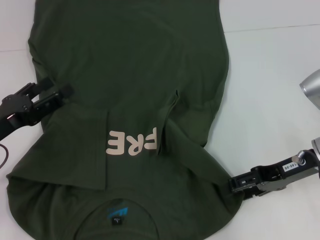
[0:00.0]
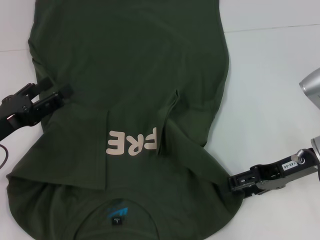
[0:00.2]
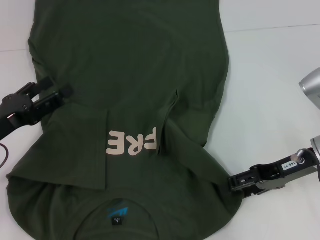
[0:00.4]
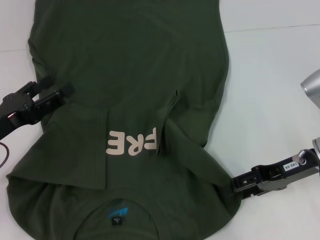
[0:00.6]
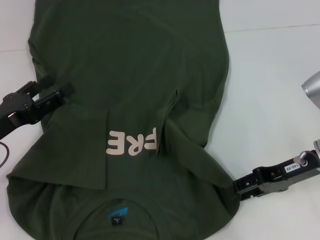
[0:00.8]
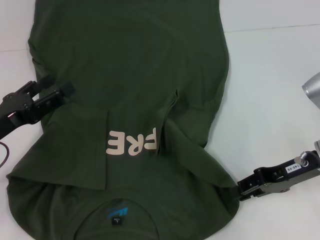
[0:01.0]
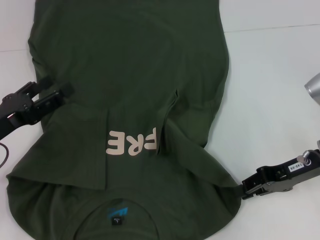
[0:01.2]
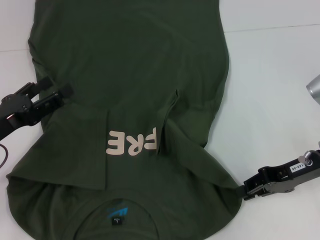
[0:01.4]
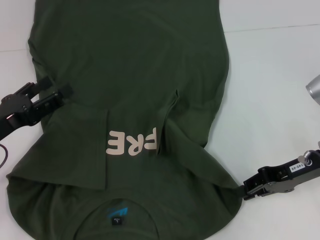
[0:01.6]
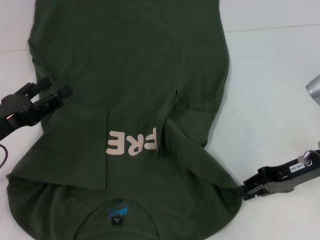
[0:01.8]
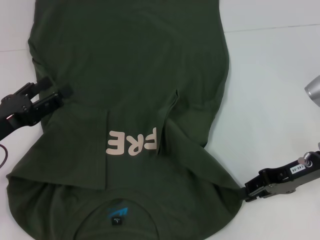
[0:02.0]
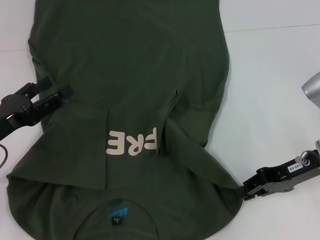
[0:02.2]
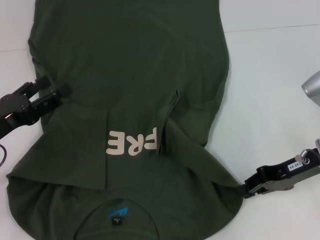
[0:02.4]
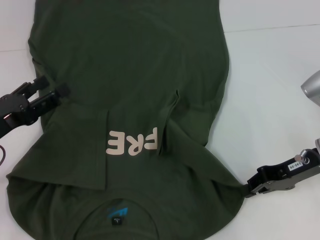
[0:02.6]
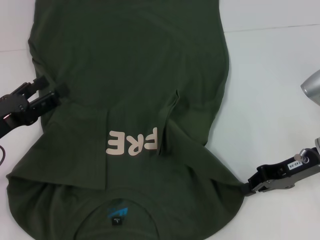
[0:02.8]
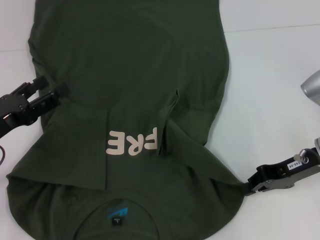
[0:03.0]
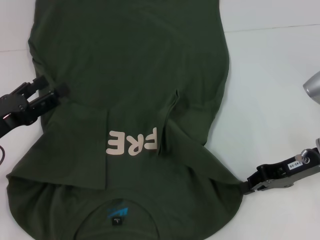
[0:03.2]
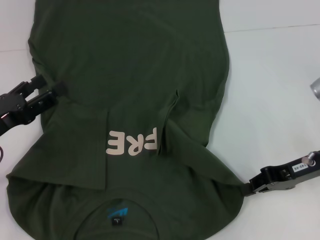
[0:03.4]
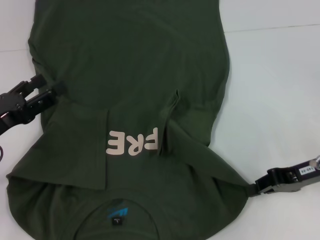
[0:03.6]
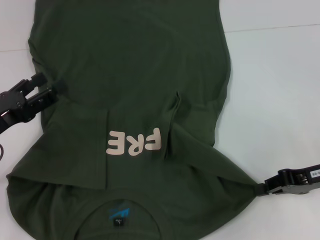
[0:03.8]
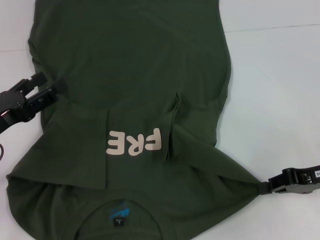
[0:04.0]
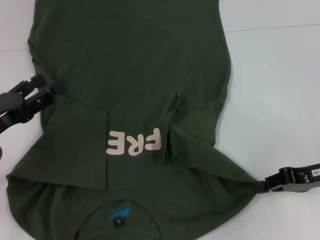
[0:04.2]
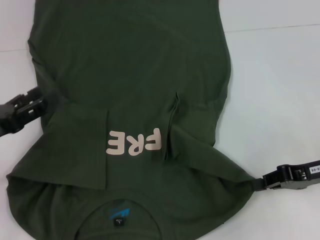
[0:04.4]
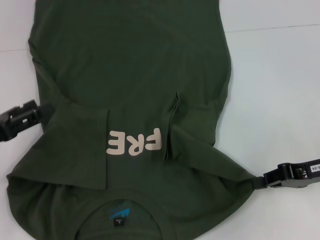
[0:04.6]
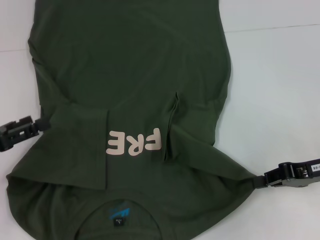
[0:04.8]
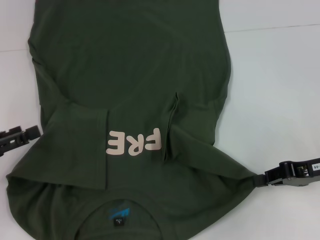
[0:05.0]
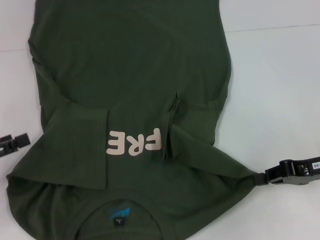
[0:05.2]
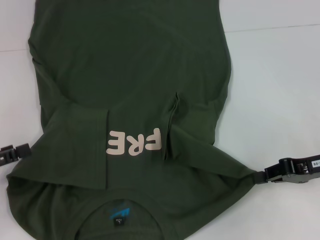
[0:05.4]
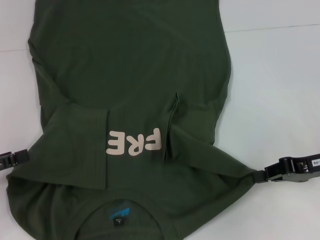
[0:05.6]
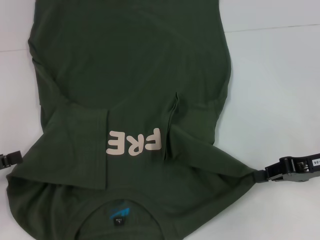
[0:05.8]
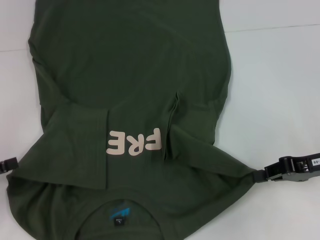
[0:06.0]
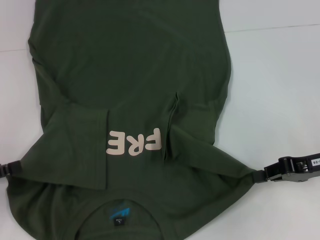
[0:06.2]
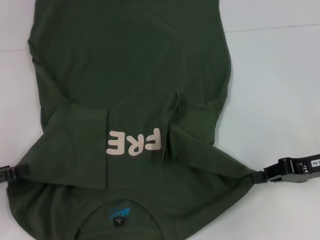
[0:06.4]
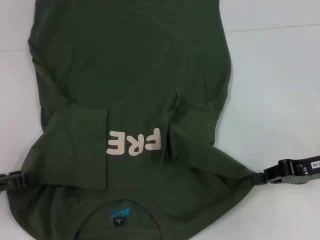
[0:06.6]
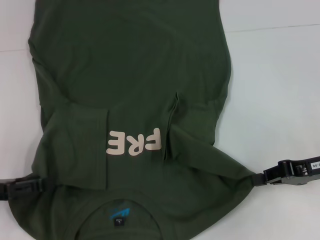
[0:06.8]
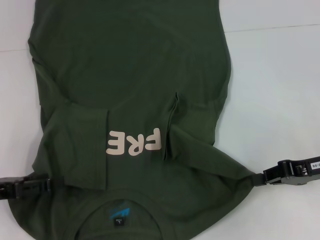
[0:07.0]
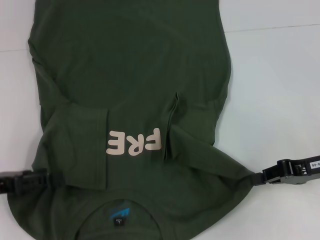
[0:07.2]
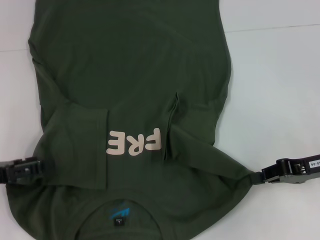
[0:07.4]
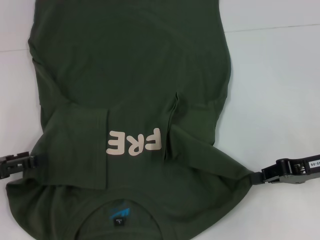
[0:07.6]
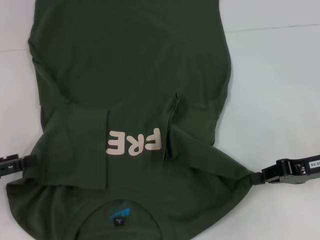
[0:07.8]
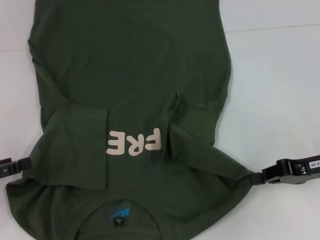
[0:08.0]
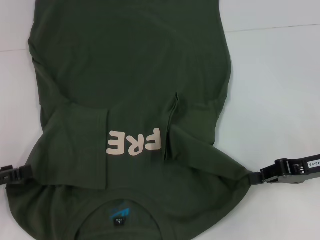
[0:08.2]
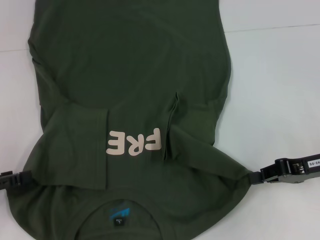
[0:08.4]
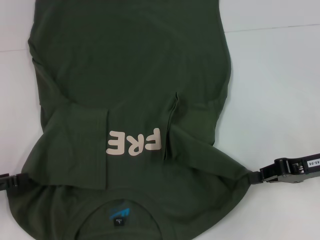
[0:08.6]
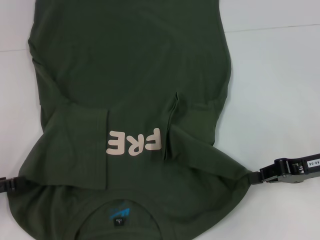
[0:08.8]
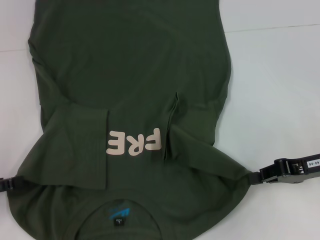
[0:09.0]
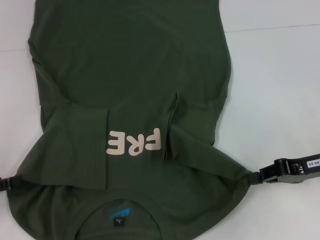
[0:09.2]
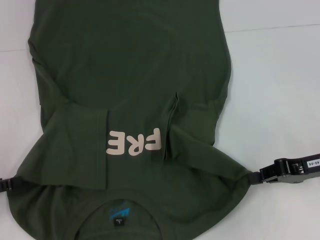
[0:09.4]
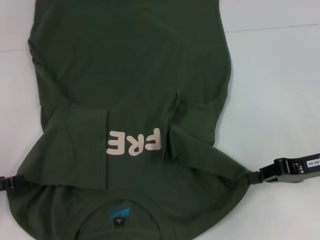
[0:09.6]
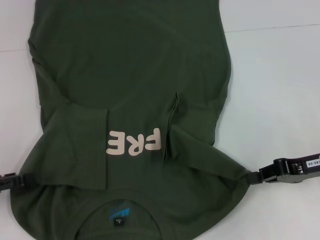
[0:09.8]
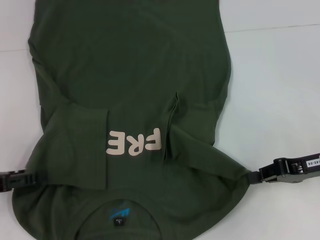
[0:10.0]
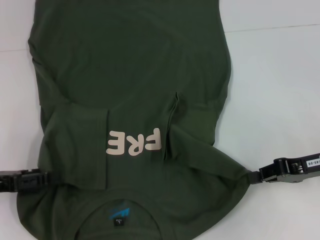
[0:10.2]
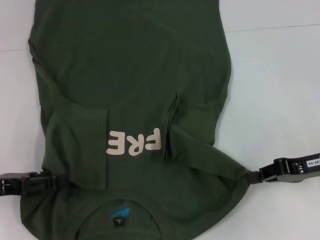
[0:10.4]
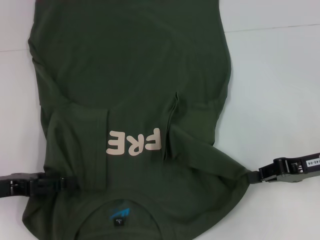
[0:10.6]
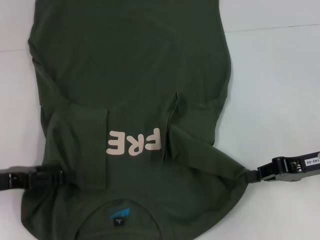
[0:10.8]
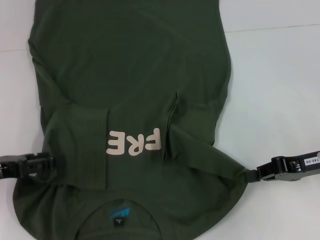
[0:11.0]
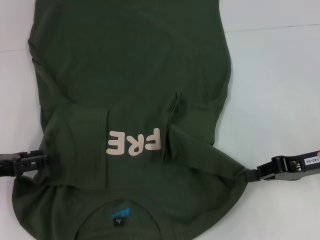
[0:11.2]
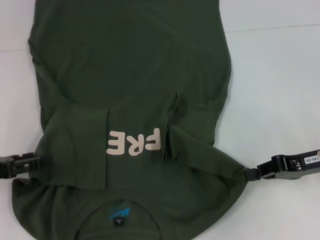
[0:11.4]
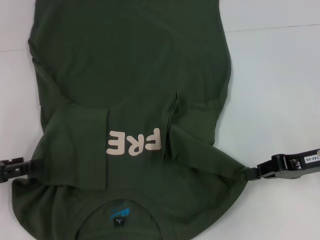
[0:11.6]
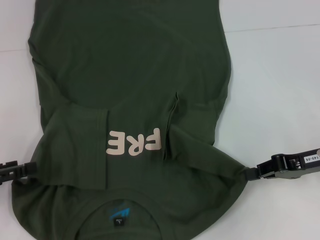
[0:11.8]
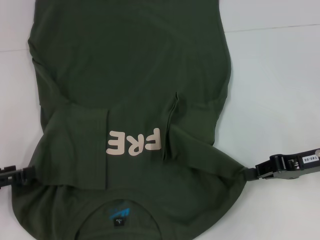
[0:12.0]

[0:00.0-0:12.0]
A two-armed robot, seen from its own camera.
Step, 0:00.0 to 0:03.4: Grab the bottom right corner with your right hand.
Step, 0:03.6 to 0:09.0: Grab the bottom left corner with your left hand.
0:00.0 to 0:01.6: The right gripper closes.
0:01.6 to 0:03.0: Neither gripper changes place.
0:03.0 to 0:04.4: The grippers move only a little.
0:04.4 to 0:06.0: The left gripper goes approximately 5 cm to the left.
0:06.0 to 0:09.0: The grippers stay close to where they were, moving slightly.
0:09.0 to 0:10.4: The left gripper goes some 5 cm to the right.
0:10.4 to 0:12.0: The grippers stay close to where they were, moving slightly.

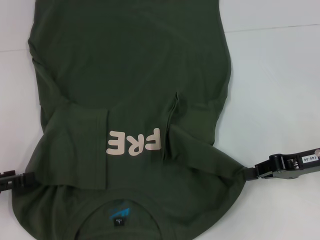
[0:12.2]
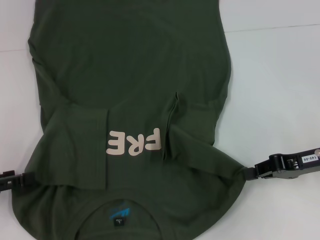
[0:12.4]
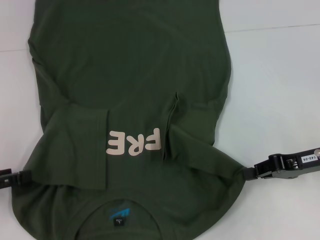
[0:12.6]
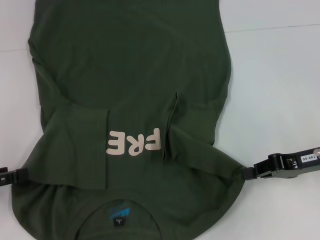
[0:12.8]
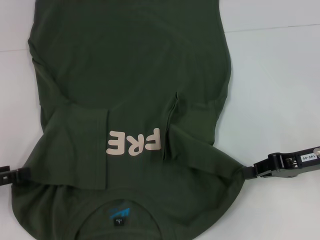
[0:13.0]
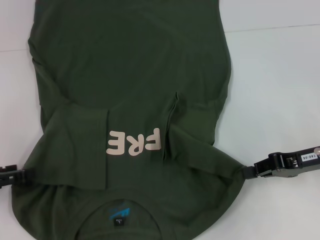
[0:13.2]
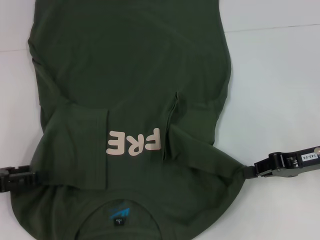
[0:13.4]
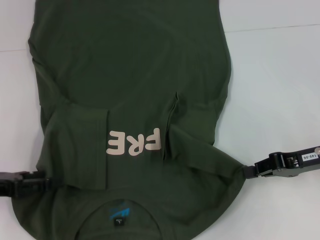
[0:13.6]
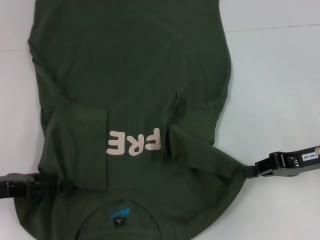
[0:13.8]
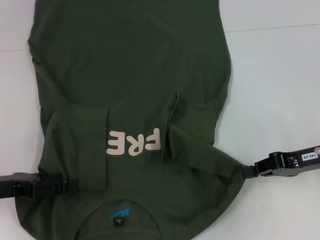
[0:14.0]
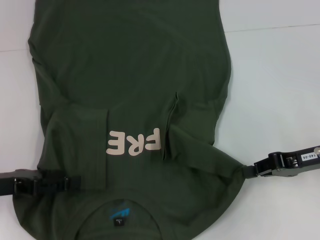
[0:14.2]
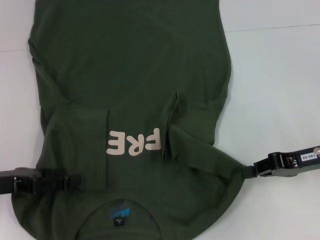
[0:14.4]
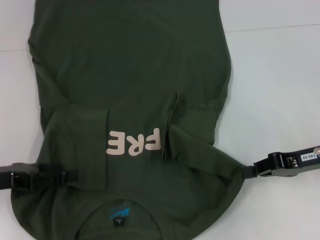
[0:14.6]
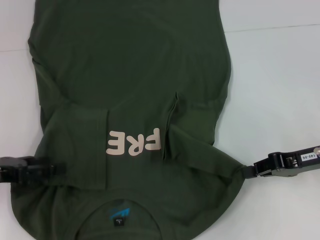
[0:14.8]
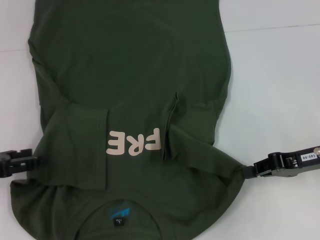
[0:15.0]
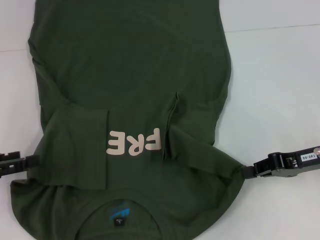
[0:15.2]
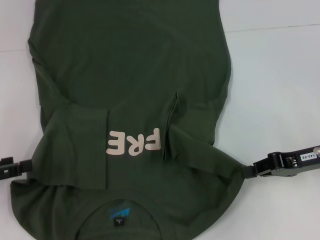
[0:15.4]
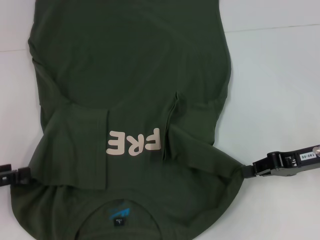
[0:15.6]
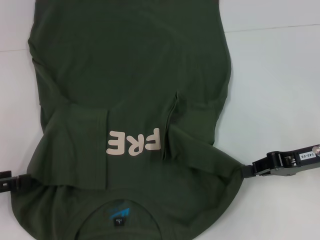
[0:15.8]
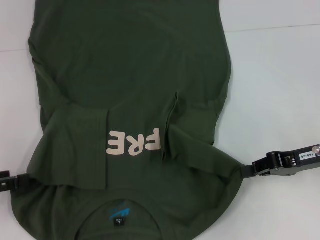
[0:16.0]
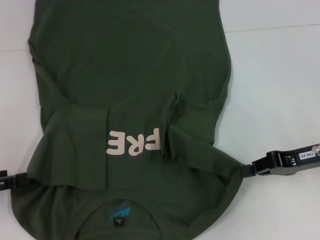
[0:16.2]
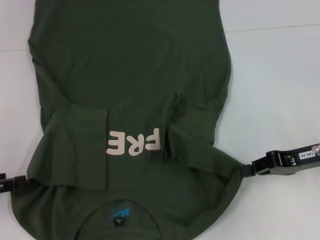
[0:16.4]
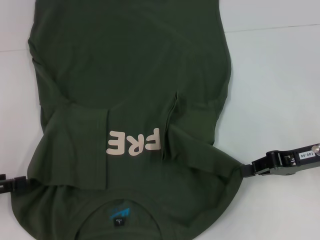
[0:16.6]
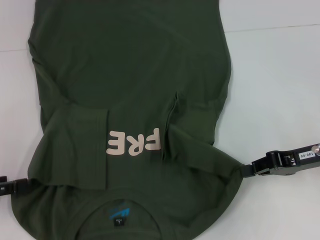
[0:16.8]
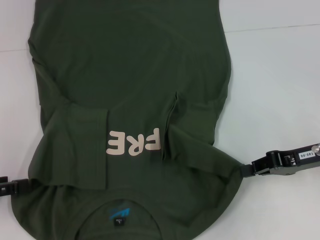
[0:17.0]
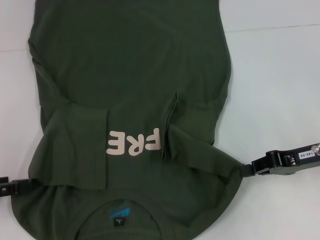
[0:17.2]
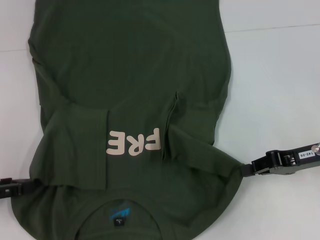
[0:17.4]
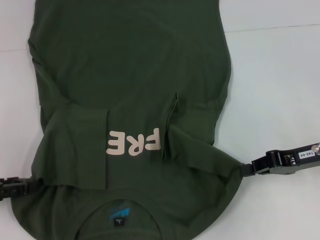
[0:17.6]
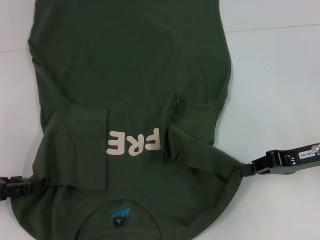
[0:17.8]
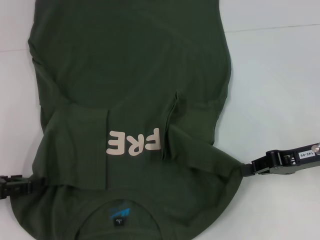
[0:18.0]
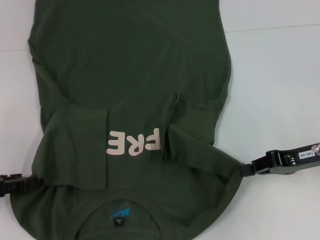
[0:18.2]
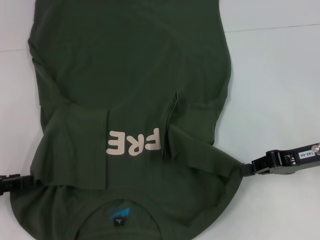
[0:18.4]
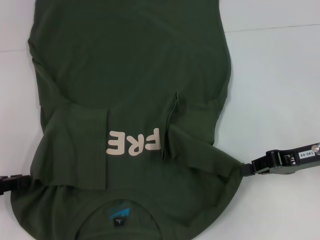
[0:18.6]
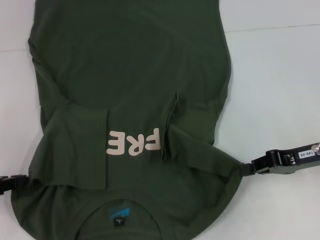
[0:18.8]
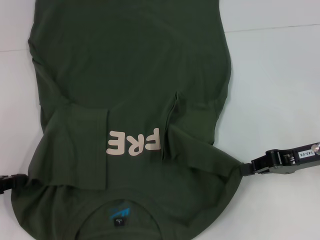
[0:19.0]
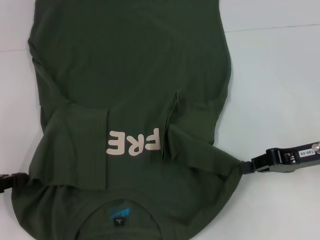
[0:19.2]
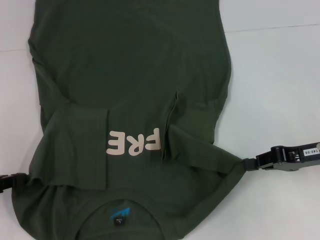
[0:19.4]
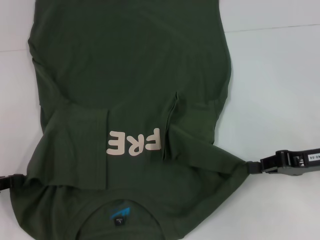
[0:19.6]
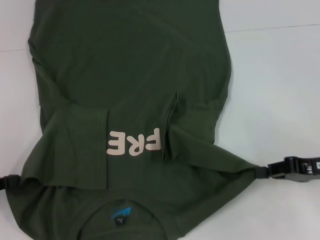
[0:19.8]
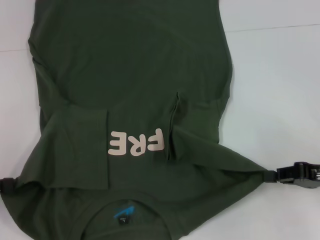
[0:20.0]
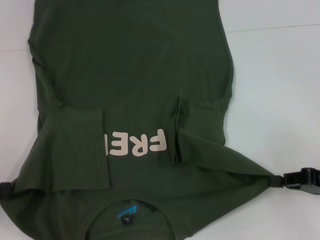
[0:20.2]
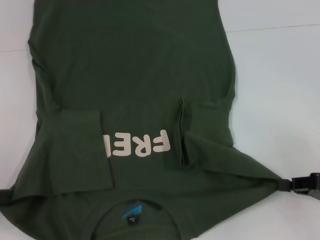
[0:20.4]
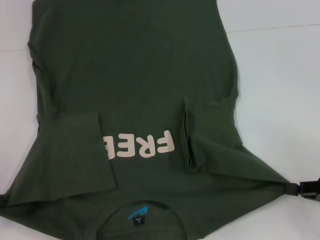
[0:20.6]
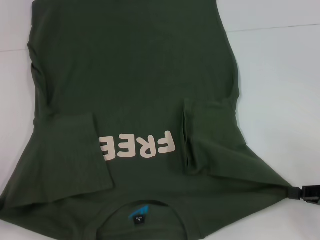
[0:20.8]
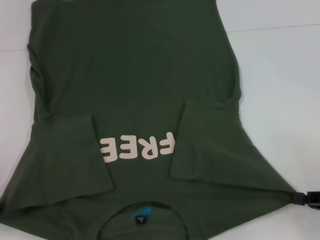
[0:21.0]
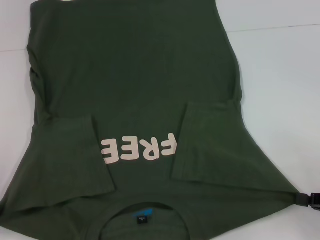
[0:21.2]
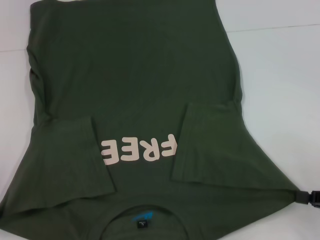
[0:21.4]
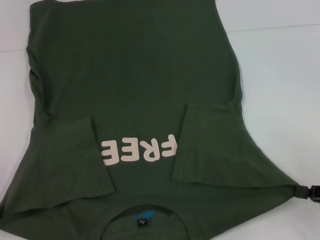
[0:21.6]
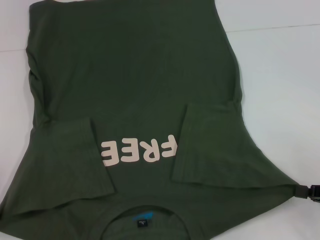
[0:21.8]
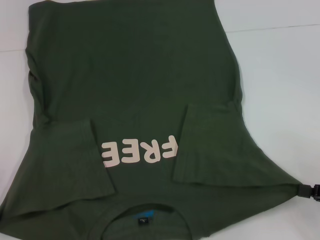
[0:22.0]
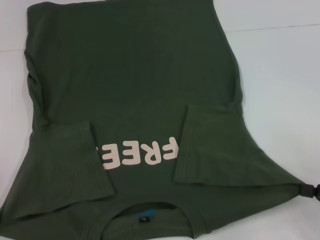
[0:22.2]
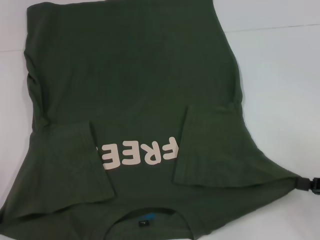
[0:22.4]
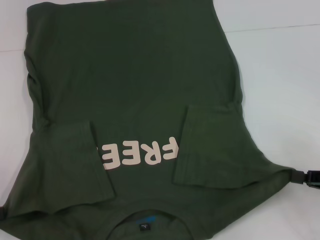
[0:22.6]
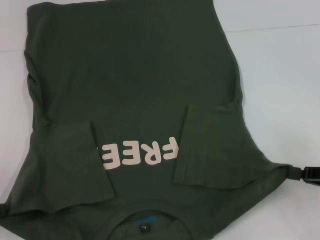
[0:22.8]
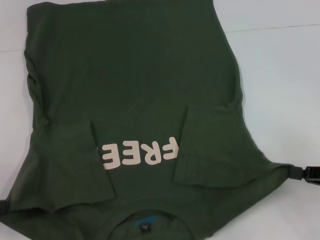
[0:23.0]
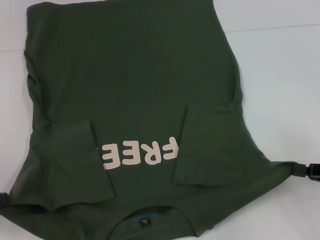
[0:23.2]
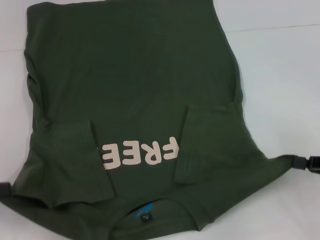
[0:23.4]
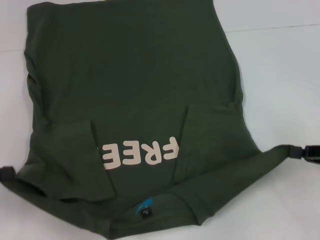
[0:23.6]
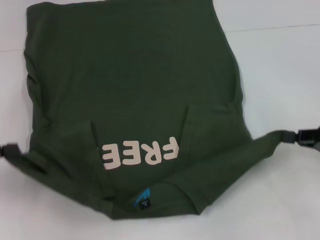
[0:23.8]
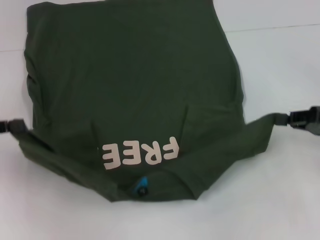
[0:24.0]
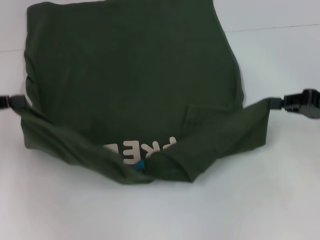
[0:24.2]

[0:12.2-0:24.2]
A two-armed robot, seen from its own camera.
0:12.2 to 0:16.6: The grippers move only a little.
0:18.2 to 0:19.8: The left gripper closes up.
0:19.8 to 0:21.2: The right gripper heads backward, covering roughly 10 cm.
0:21.2 to 0:22.6: The grippers stay close to where they were, moving slightly.
0:22.6 to 0:24.2: The grippers both shift forward and upward by approximately 10 cm.
